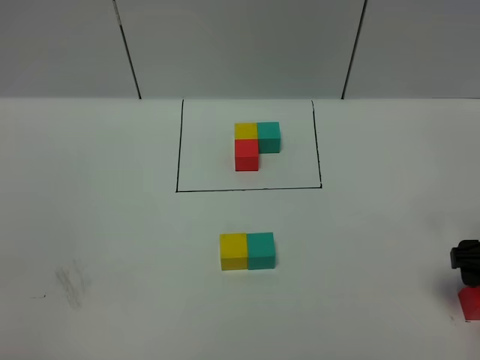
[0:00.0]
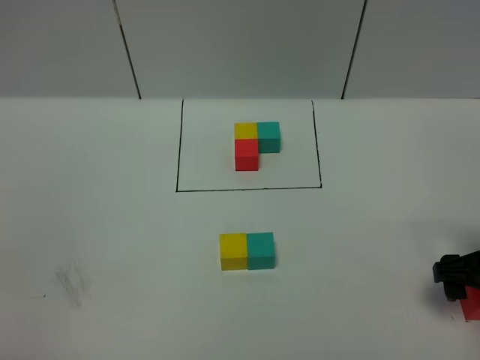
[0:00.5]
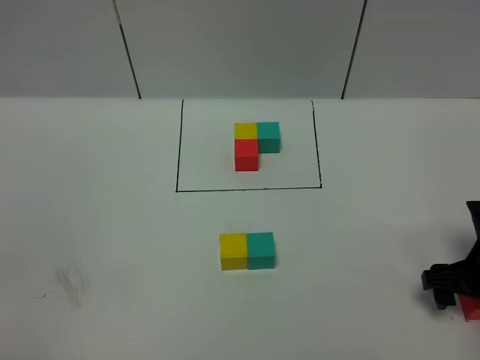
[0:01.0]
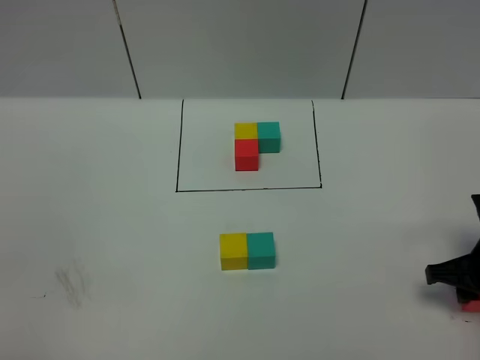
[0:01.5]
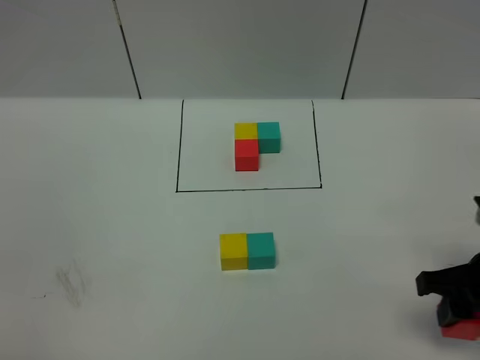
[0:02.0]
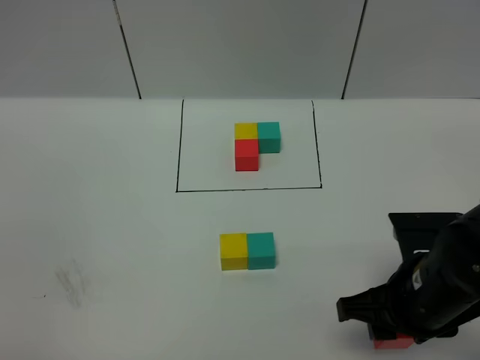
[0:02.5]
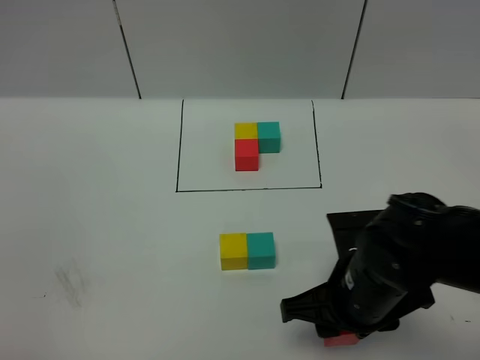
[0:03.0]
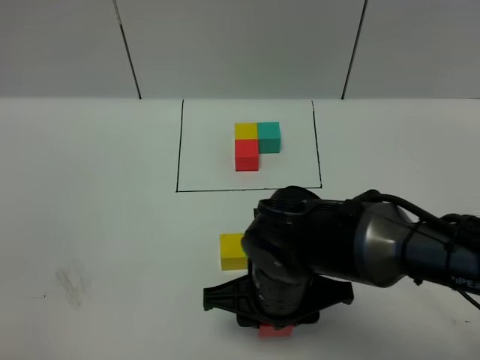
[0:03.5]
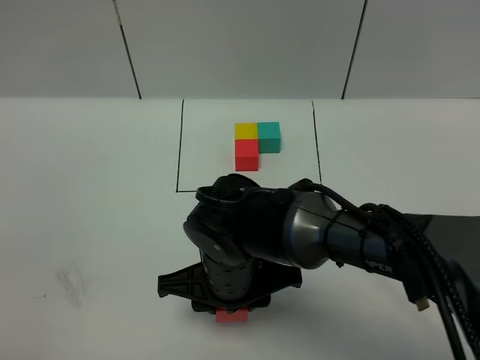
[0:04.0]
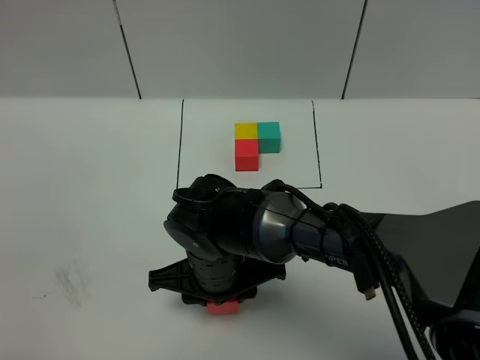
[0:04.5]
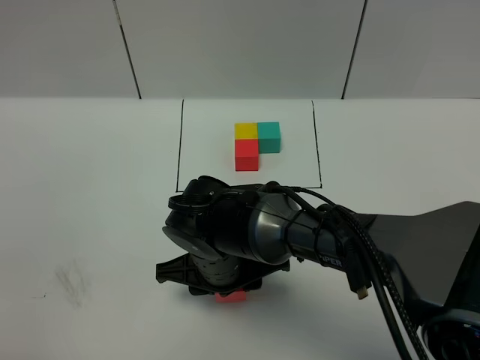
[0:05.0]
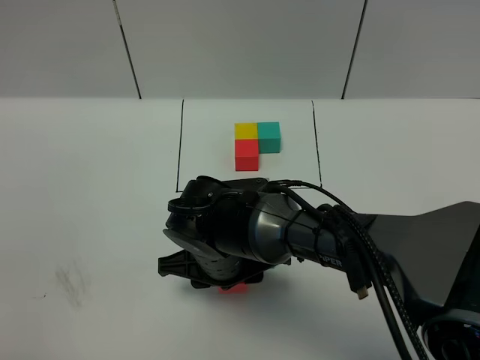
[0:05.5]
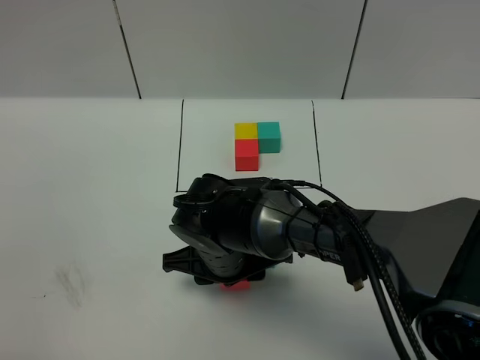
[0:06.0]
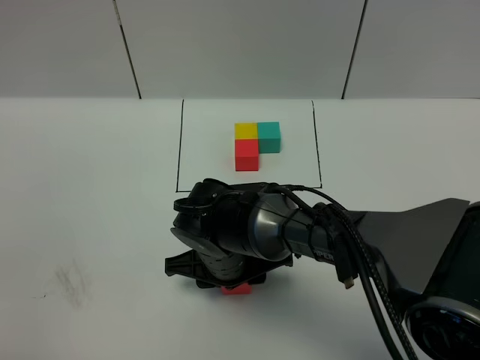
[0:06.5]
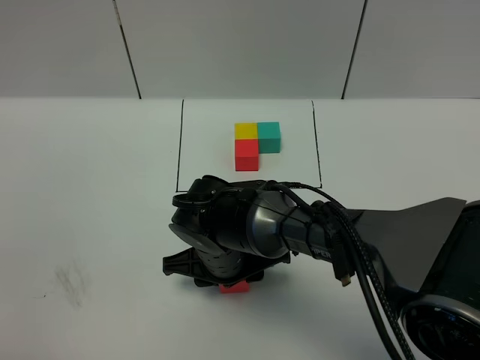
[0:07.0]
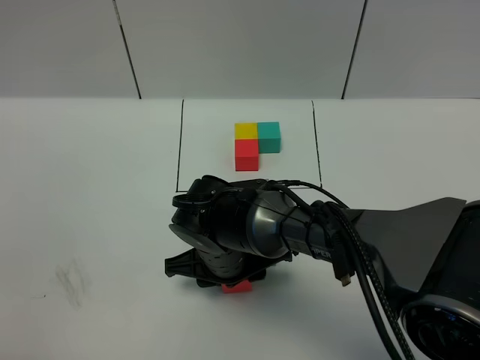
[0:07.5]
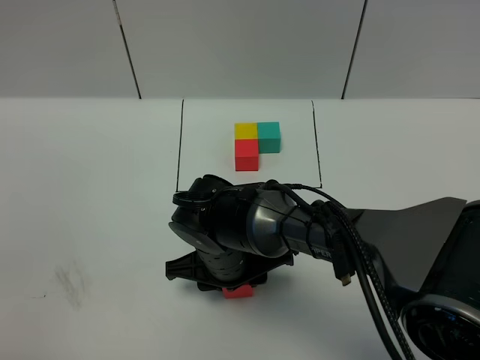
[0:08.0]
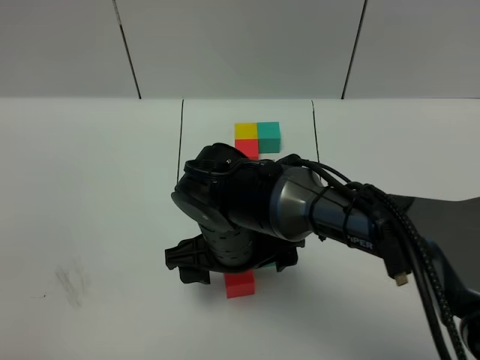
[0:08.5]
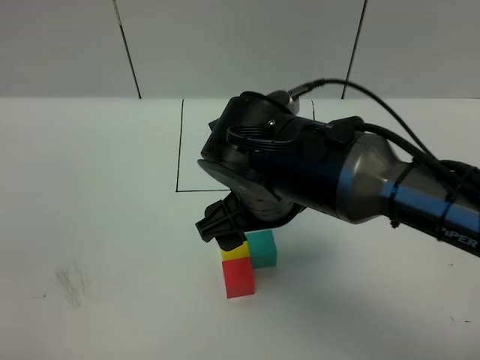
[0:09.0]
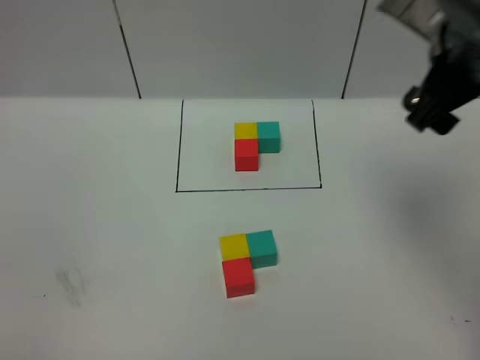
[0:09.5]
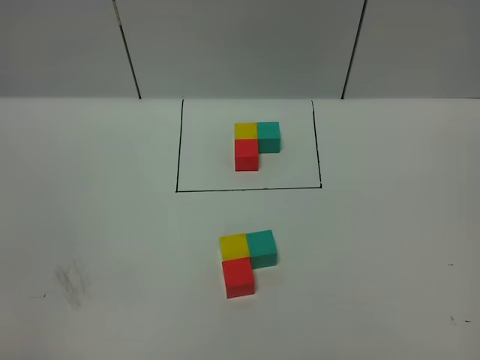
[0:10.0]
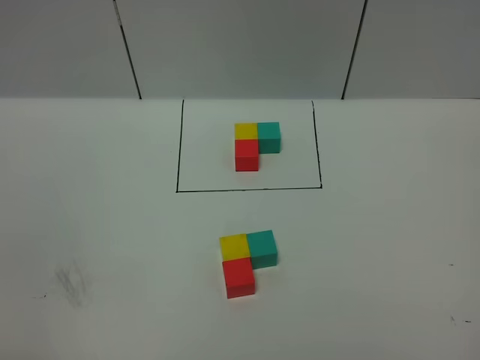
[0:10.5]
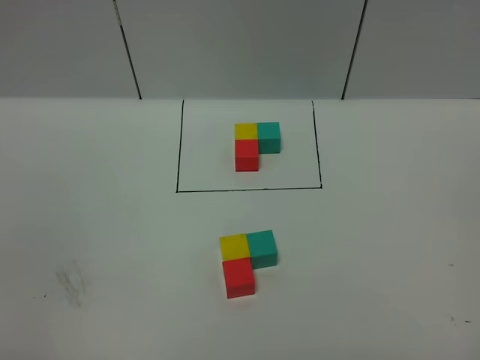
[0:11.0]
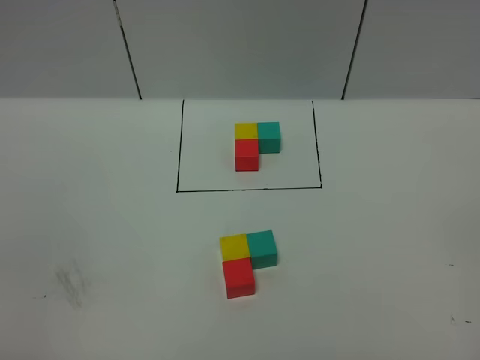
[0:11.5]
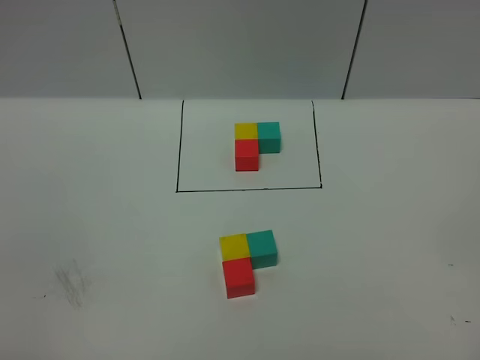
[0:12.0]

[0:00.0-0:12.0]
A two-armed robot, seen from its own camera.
Task of the whole recording: According to the building block template in front, assemble the scattered blocks together.
Step, 0:00.0 to 0:09.0: Put the red cube in the front of the yellow cube.
0:00.0 to 0:02.0: The right gripper reaches about 5 cm downward, then returns, and closes its fingers.
0:02.0 to 0:04.0: The right gripper travels to the left by approximately 30 cm.
0:04.0 to 0:06.0: There are only small adjustments of the grippers.
0:06.0 to 0:08.0: Neither gripper changes place.
0:08.0 to 0:10.0: The right gripper moves to the right and upward, roughly 50 cm, and opens up.

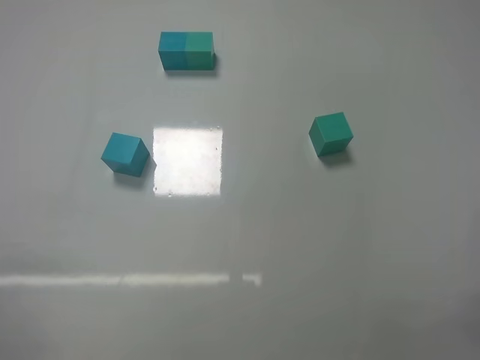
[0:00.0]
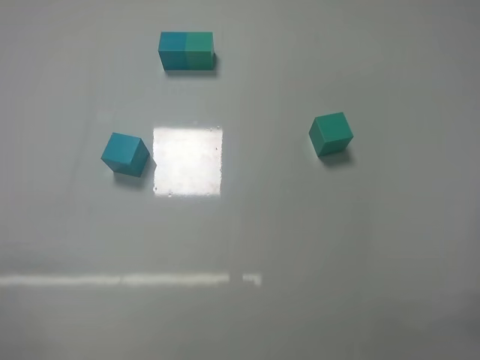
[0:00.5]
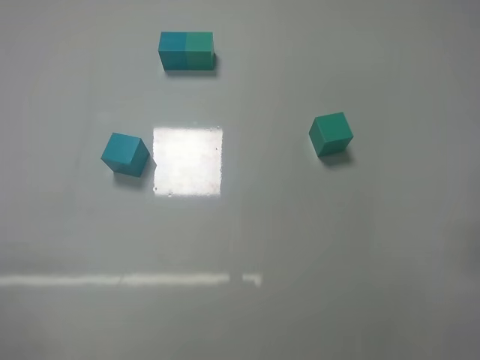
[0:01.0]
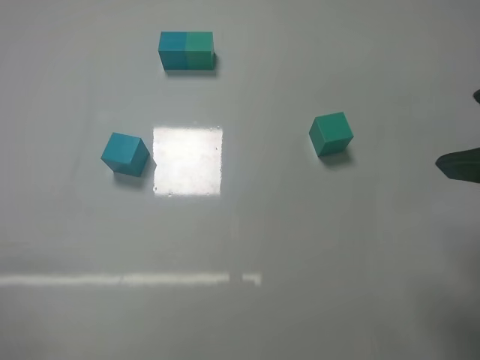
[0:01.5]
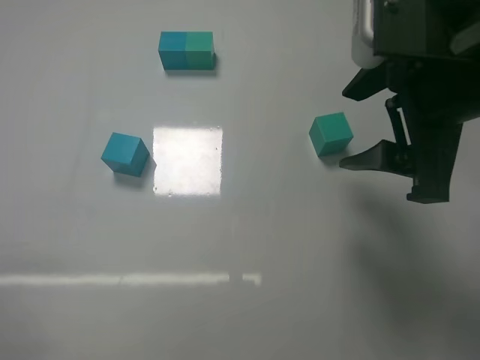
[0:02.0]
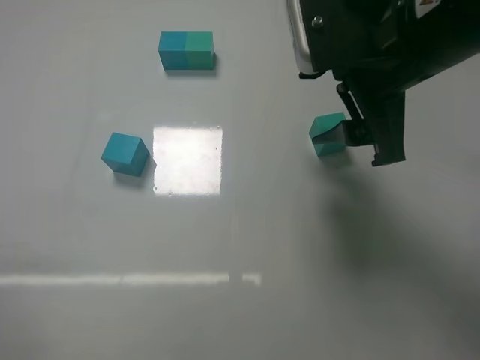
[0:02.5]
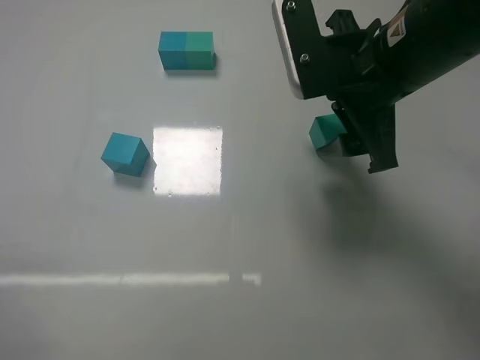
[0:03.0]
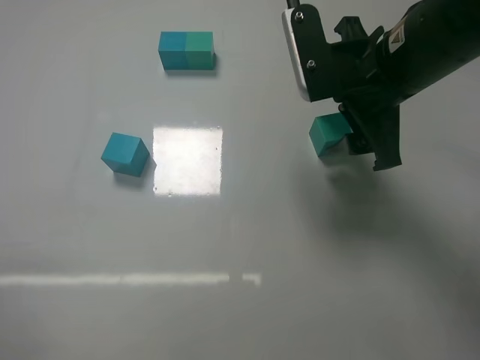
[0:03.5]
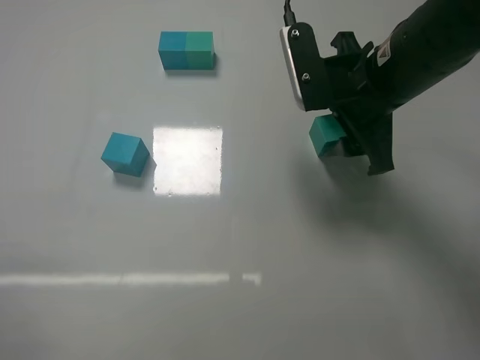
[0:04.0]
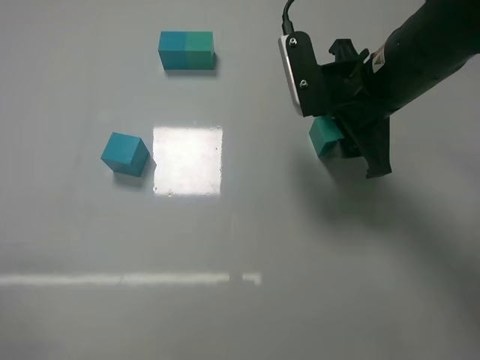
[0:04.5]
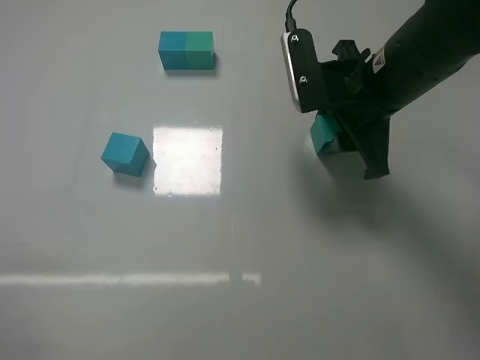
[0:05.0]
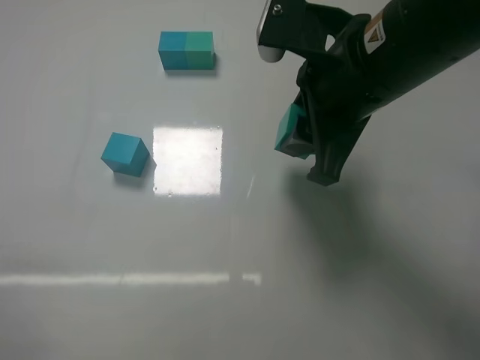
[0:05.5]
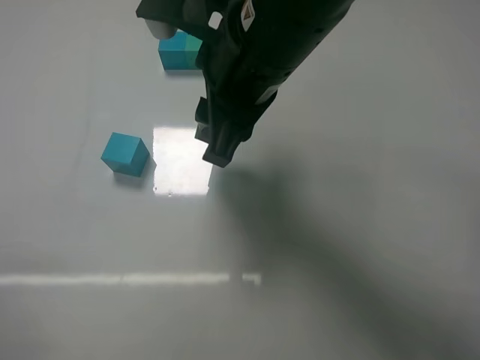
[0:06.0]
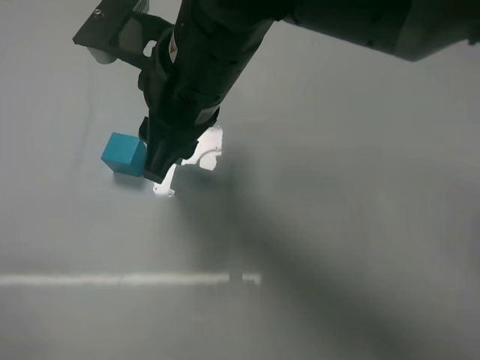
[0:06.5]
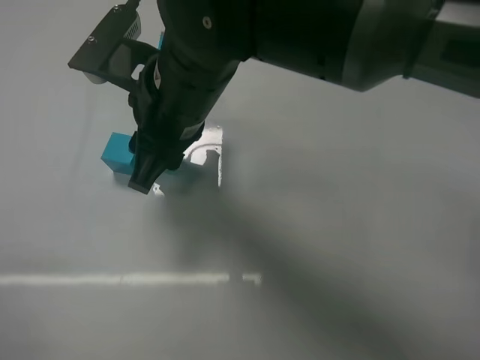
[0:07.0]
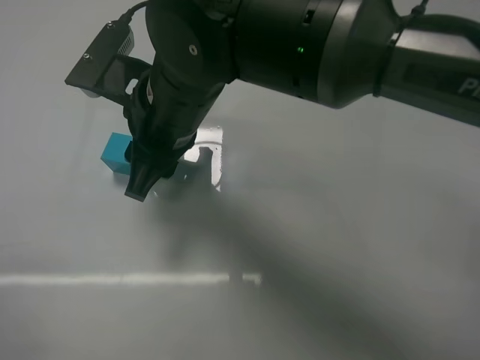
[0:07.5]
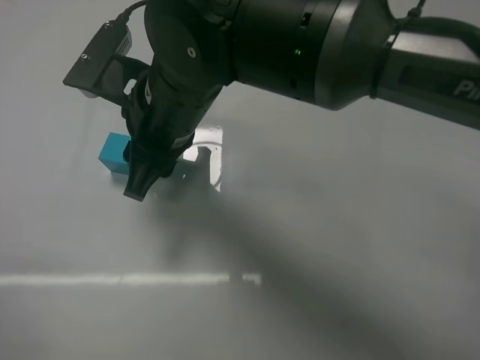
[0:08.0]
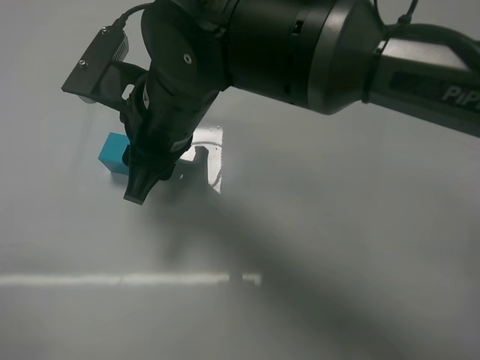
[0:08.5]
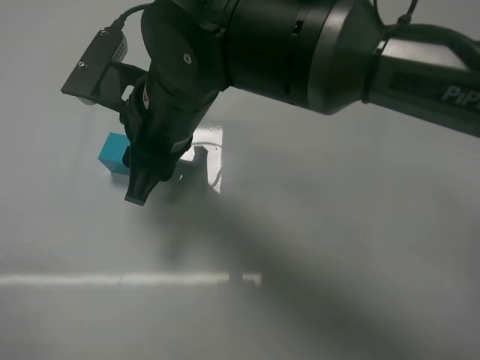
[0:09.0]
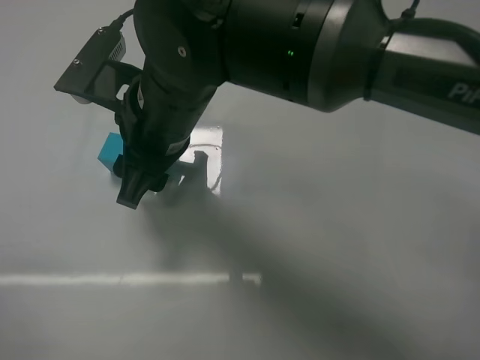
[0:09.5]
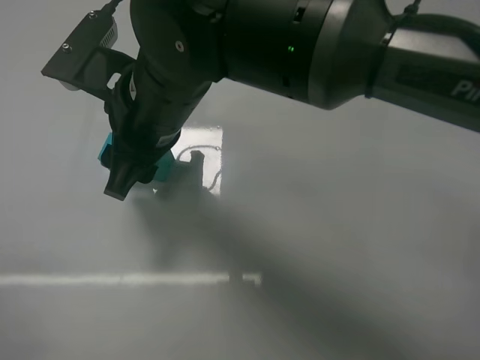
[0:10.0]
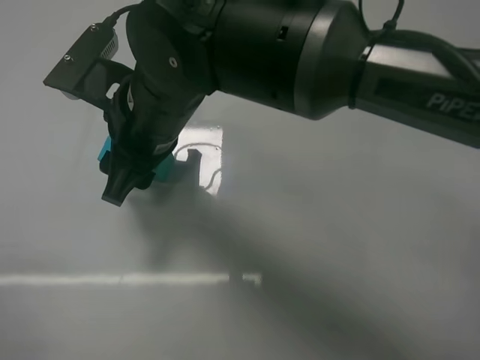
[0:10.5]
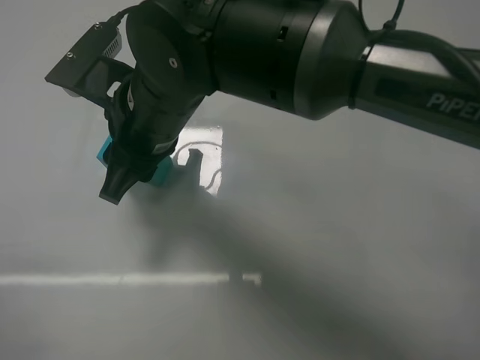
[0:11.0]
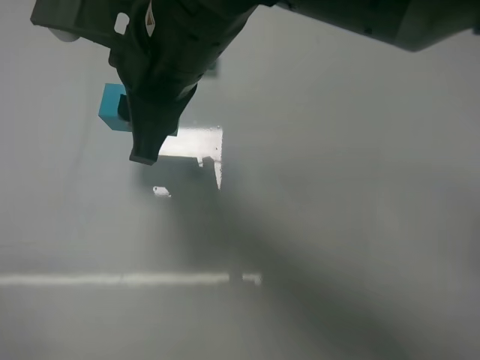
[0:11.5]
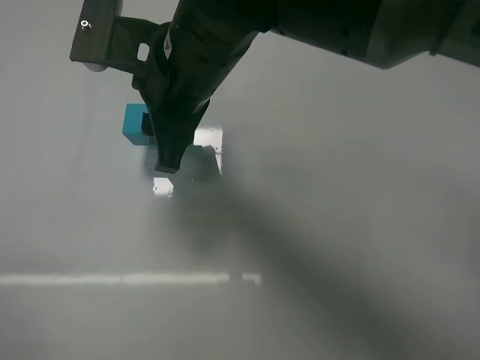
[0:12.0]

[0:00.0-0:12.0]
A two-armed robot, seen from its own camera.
Task of the whole recording: According to the building block template in front, assemble the scattered blocks together.
Step, 0:00.0 to 0:04.5: Grasp the green block with right gripper.
Step, 0:05.0 to 0:09.0: Put the green cube on the right of the blue cube with the right gripper.
0:00.0 to 0:02.0: The right gripper shifts approximately 30 cm forward, to the left and upward.
0:02.0 to 0:04.0: The right gripper is displaced forward by some 10 cm.
0:04.0 to 0:06.0: The right gripper goes roughly 15 cm to the left, and closes its fingers.
0:06.0 to 0:08.0: The right gripper is displaced to the left and downward by roughly 10 cm.
0:08.0 to 0:10.0: The right gripper opens.
0:10.0 to 0:12.0: The right gripper closes up.

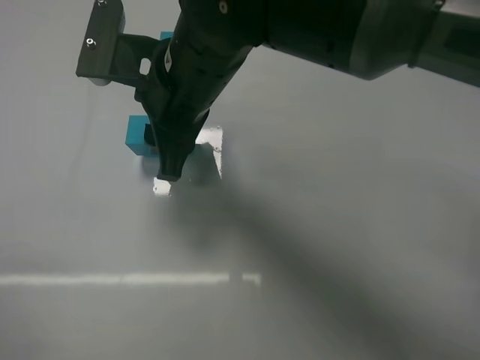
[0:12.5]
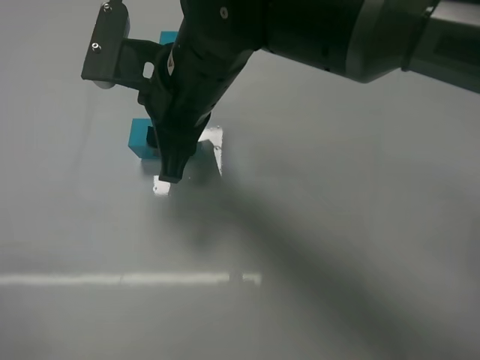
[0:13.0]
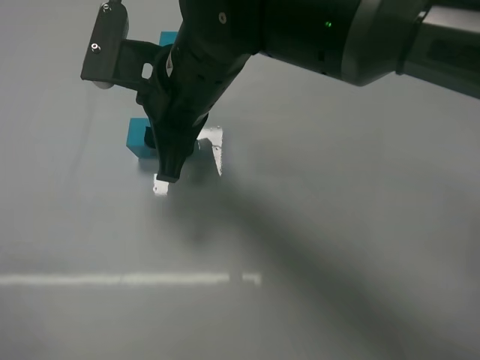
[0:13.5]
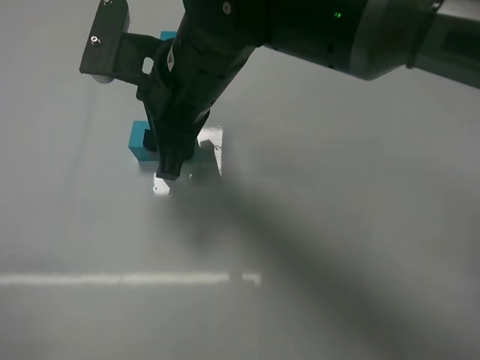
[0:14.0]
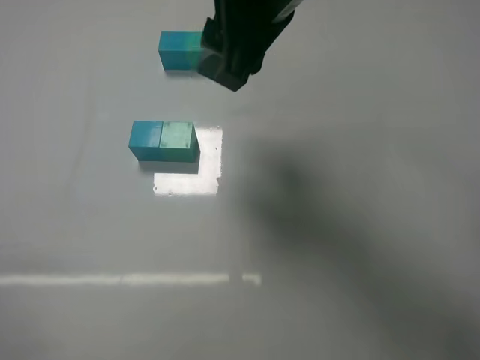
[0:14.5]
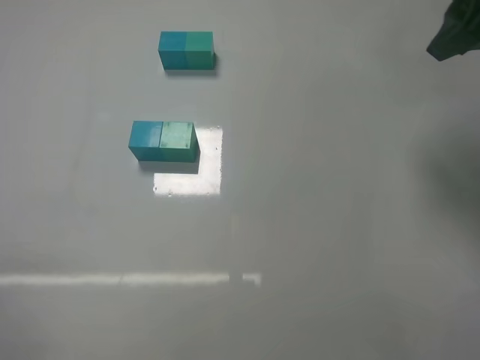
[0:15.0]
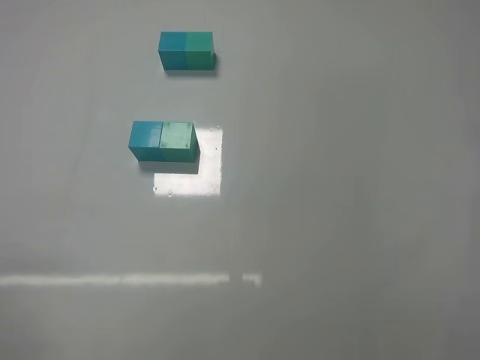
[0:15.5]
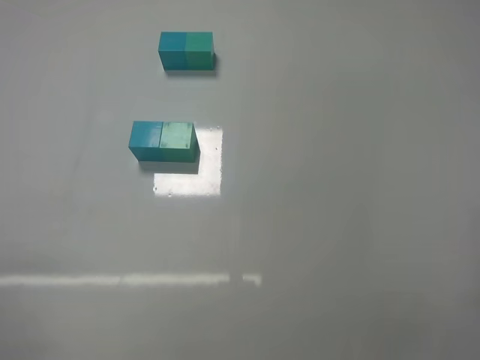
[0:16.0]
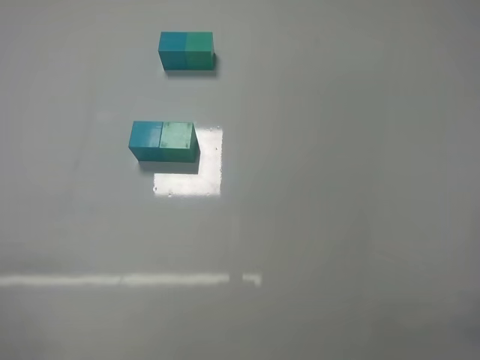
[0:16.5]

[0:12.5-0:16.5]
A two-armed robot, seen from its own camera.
Task of the whole recording: According to the building block template in front, assemble the scattered blocks together.
0:12.5 to 0:14.5: The right gripper goes some 15 cm upward and to the right, and opens.
0:14.5 to 0:16.5: The right gripper moves to the right, backward and downward, approximately 40 cm.
